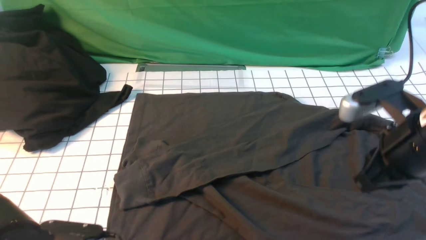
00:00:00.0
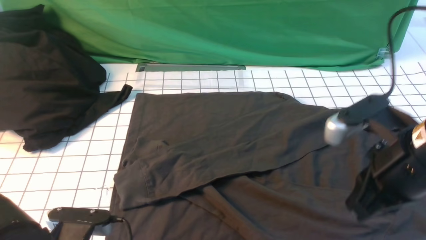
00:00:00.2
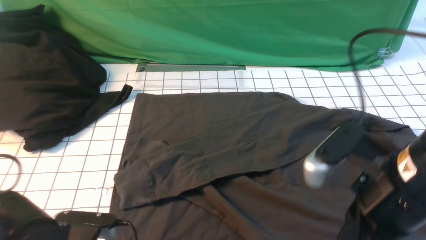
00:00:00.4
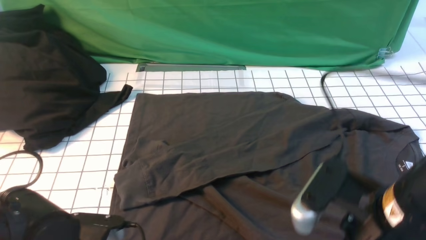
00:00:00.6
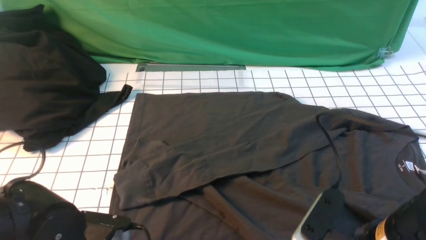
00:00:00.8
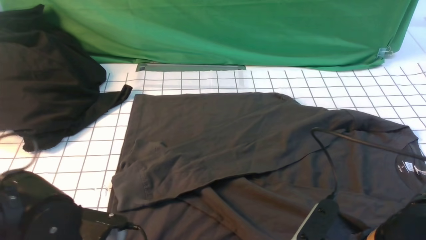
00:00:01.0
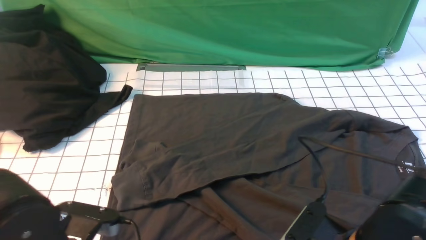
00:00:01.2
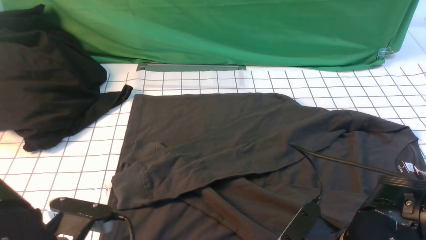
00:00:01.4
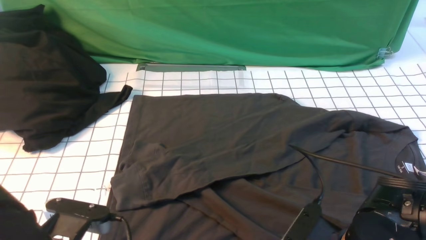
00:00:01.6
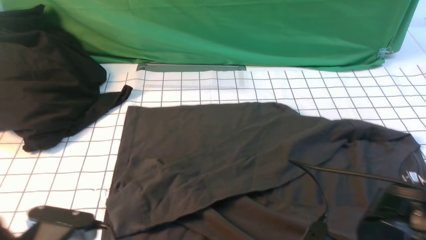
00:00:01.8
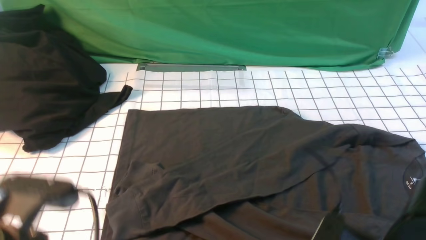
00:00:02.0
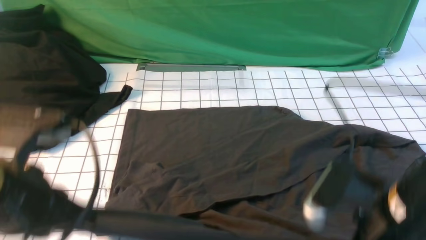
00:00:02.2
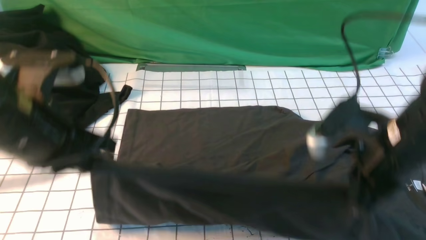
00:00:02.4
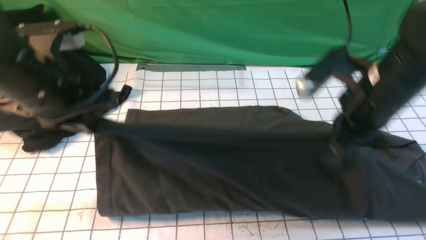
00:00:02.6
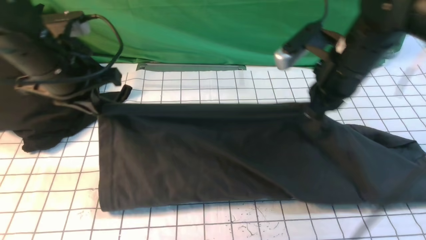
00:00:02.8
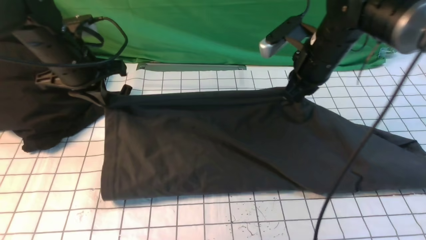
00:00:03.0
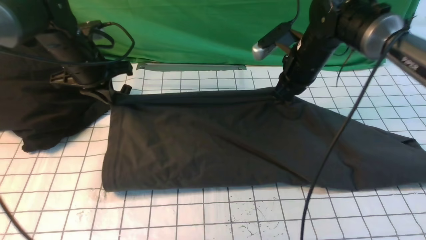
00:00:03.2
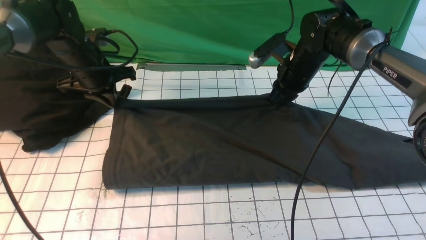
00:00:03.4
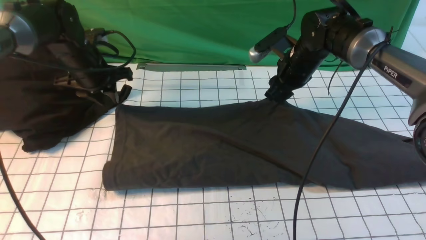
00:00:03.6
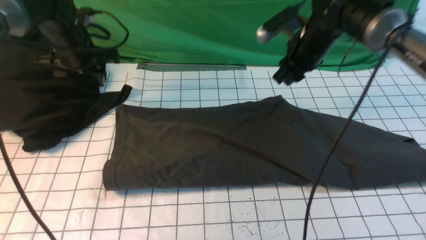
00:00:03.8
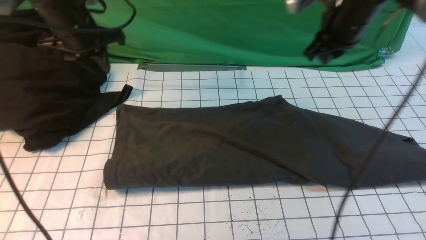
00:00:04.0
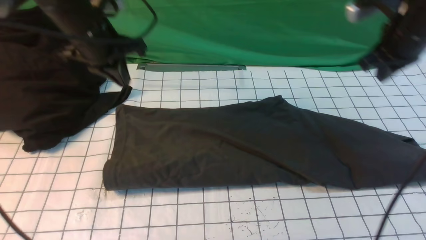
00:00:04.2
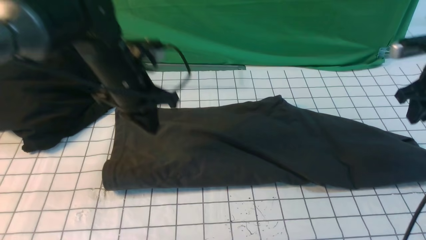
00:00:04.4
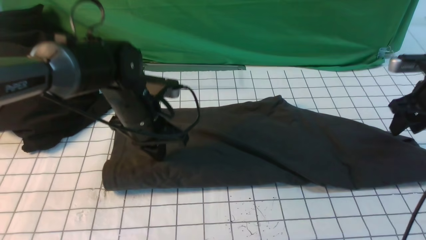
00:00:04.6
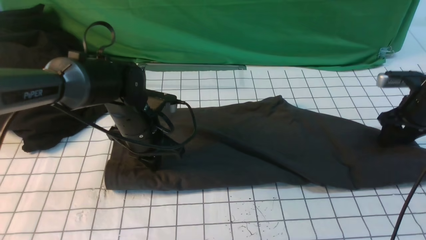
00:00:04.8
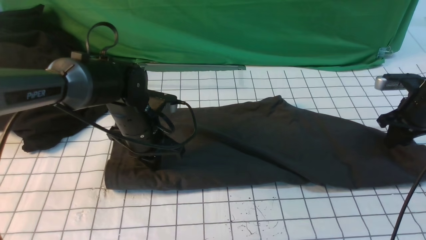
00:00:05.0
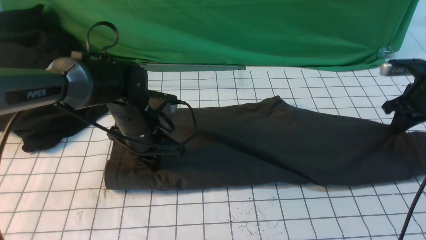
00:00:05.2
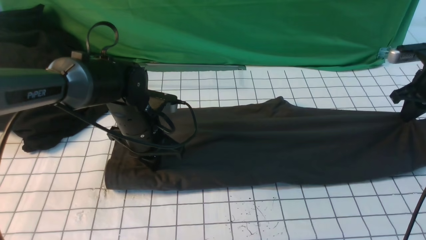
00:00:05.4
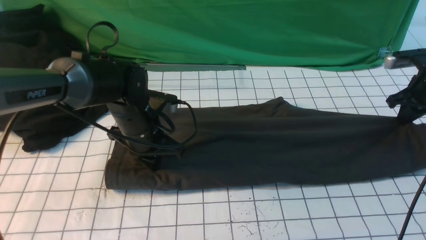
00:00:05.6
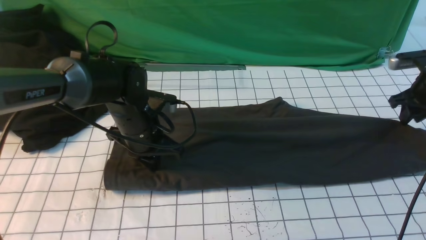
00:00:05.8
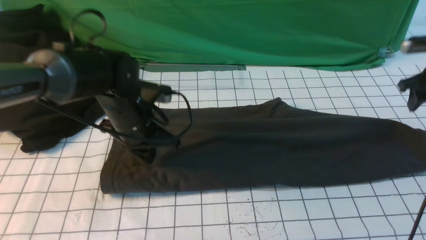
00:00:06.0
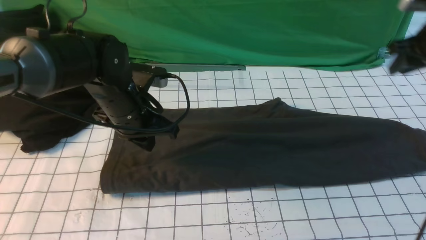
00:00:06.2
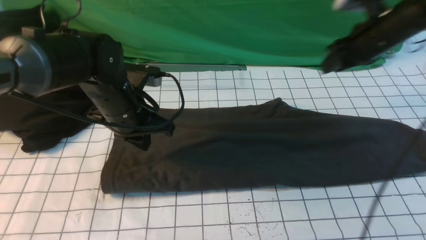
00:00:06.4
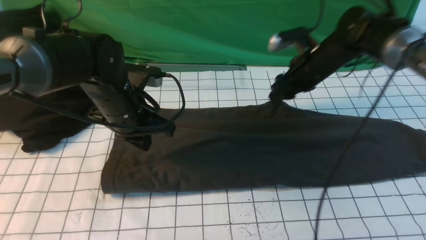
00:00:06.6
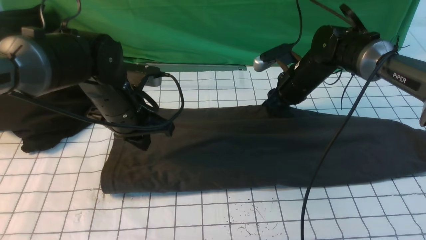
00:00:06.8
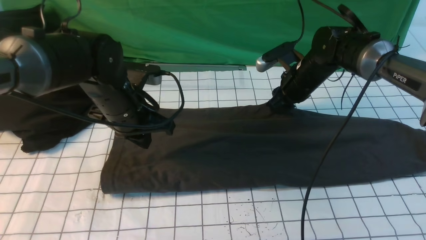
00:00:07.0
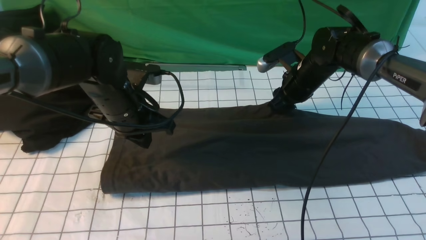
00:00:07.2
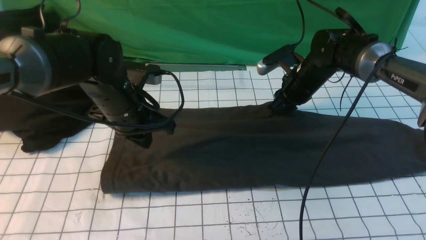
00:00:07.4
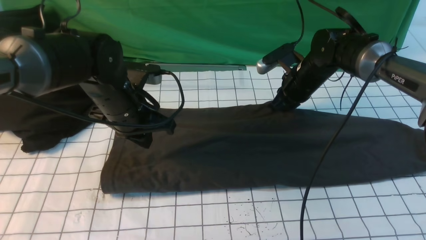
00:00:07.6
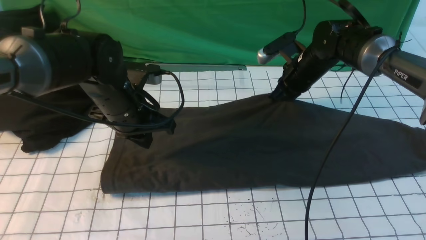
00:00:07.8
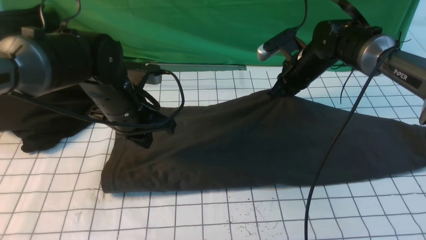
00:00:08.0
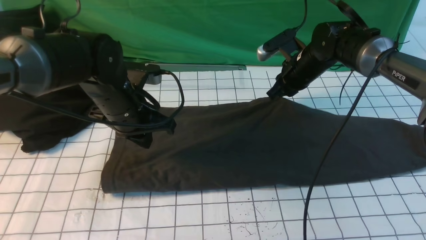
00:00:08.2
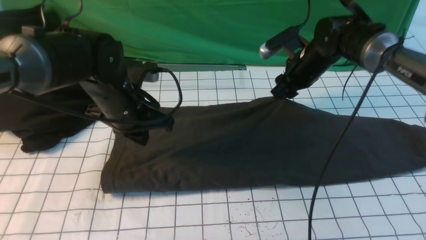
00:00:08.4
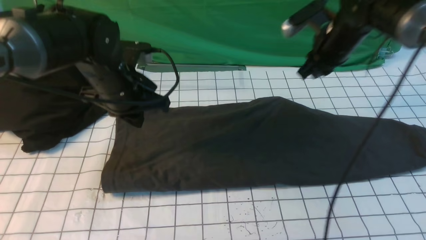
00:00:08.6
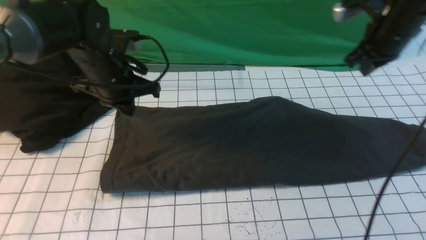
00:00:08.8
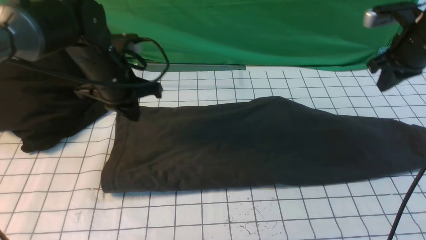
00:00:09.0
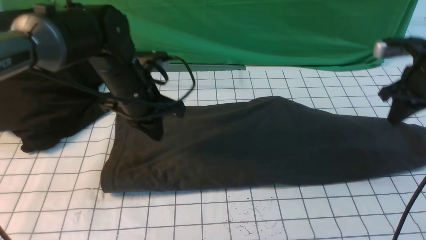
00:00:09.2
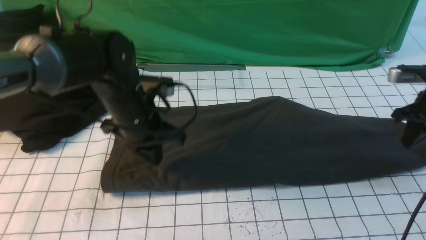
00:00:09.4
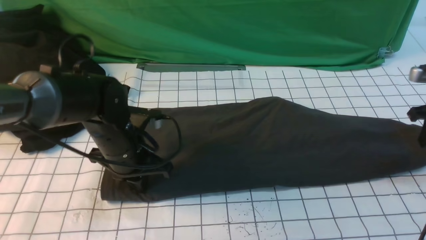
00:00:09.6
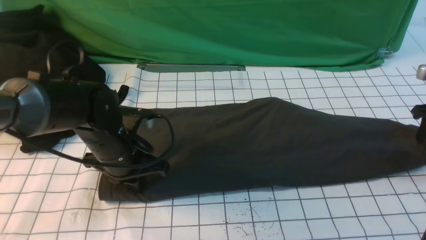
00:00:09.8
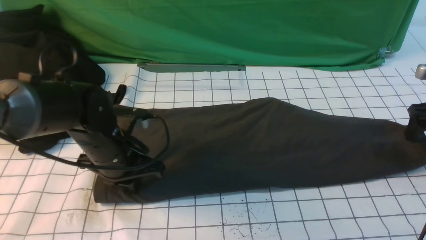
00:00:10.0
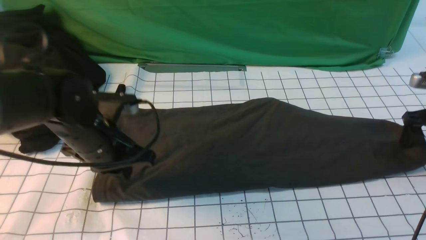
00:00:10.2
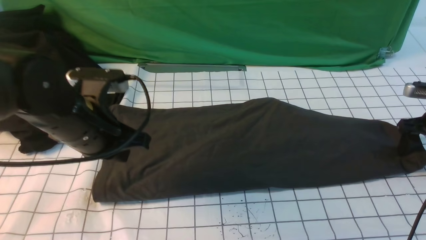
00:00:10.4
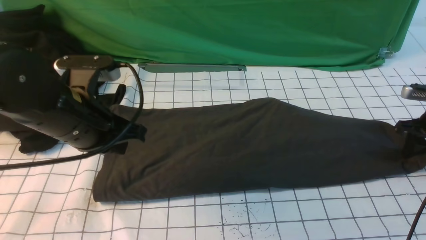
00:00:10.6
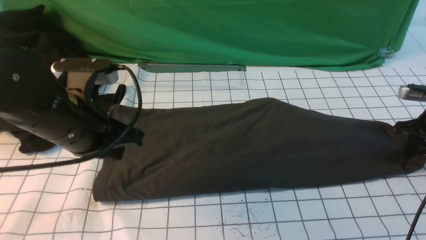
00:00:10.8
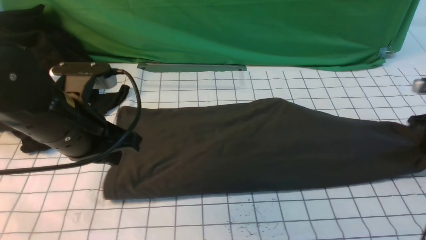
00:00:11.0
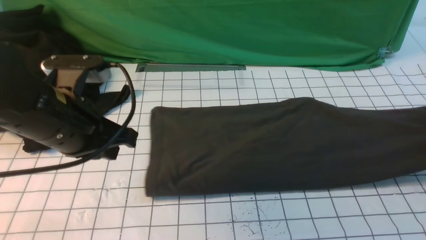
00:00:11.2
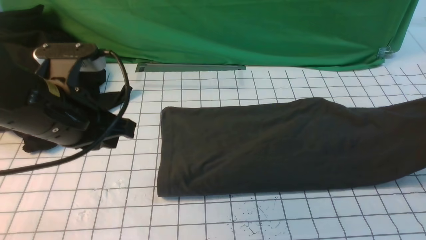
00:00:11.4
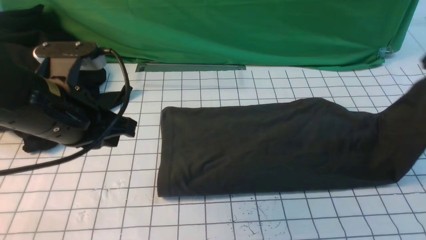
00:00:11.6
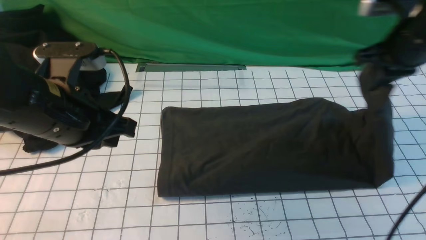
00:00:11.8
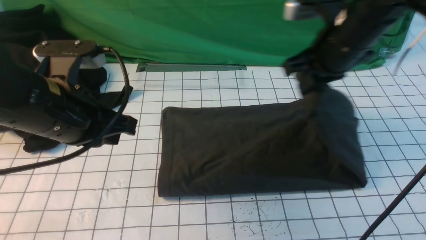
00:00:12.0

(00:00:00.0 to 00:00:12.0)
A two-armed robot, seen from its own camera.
Step, 00:00:00.0 - 00:00:02.0: use both arms simultaneously to clamp the lower edge of the clothing fabric.
Step, 00:00:02.2 - 00:00:03.6: use both arms to drag the lower edge of the fabric forward and fold it over the upper edge.
Step, 00:00:03.8 - 00:00:11.2: use the right arm to clamp the right edge of the fabric.
00:00:00.0 - 00:00:01.6: The right gripper goes about 15 cm downward and backward, and opens up, while the left gripper closes its fingers.
00:00:01.6 - 00:00:03.0: Both grippers move forward, some 30 cm.
00:00:03.0 - 00:00:04.4: The left gripper travels to the right by approximately 10 cm, and opens, then closes again. The right gripper goes roughly 20 cm to the right, and opens up.
00:00:04.4 - 00:00:06.0: The right gripper ends up about 5 cm from where it was, and closes and opens again.
00:00:06.0 - 00:00:07.6: The right gripper goes roughly 20 cm to the left, and closes its fingers.
00:00:07.6 - 00:00:09.0: The right gripper moves to the right and upward, roughly 20 cm, and opens, then closes again.
00:00:09.0 - 00:00:10.4: The left gripper goes some 10 cm backward, while the right gripper shifts some 15 cm downward and to the right, and opens its fingers.
00:00:10.4 - 00:00:12.0: The right gripper is displaced to the left and upward by roughly 30 cm, and closes its fingers, while the left gripper heads upward, covering about 5 cm.

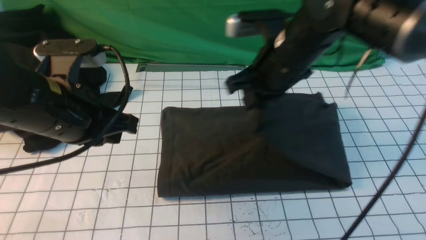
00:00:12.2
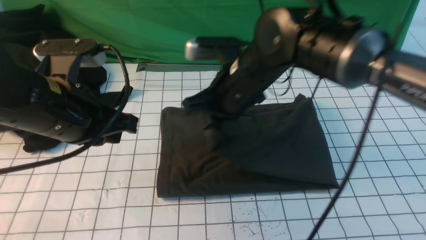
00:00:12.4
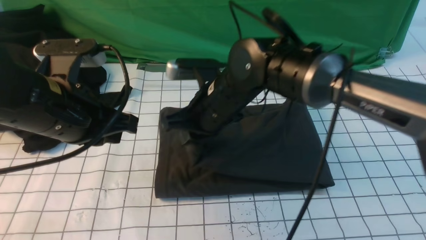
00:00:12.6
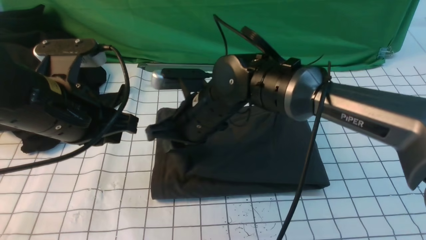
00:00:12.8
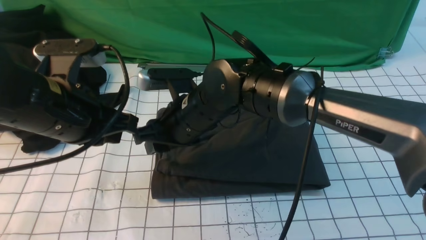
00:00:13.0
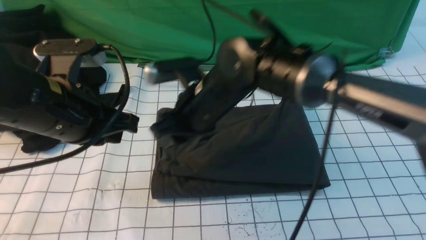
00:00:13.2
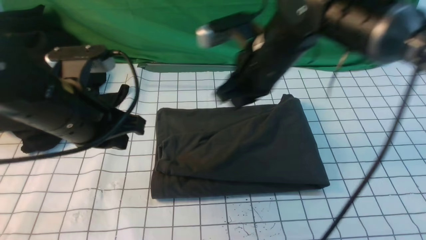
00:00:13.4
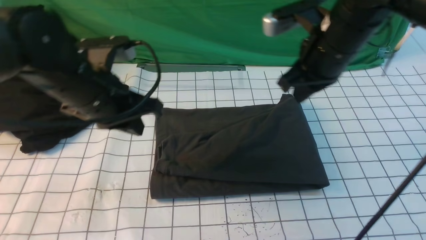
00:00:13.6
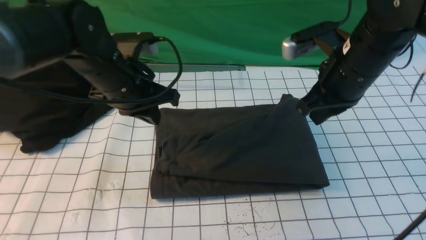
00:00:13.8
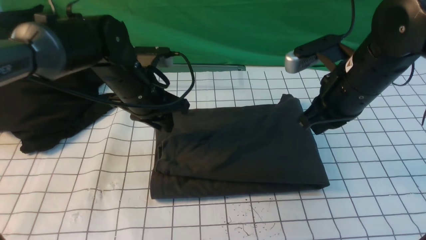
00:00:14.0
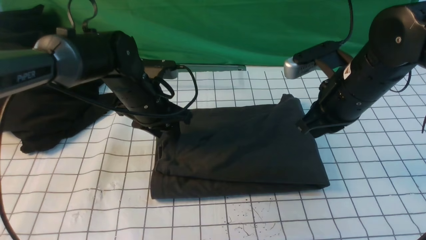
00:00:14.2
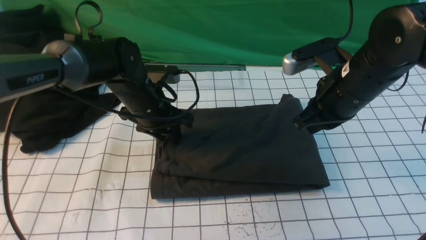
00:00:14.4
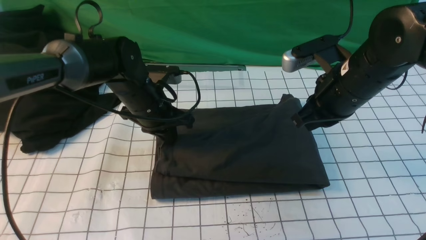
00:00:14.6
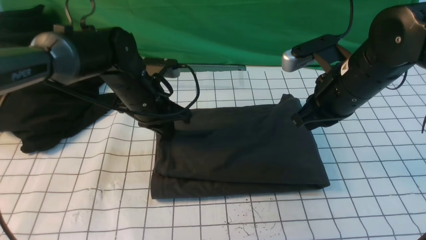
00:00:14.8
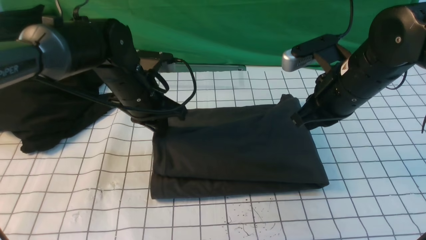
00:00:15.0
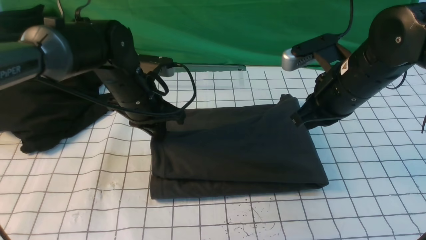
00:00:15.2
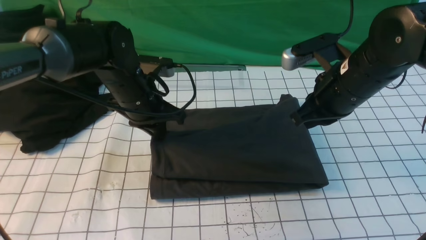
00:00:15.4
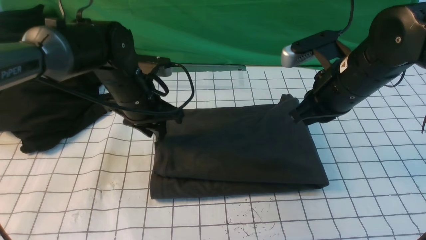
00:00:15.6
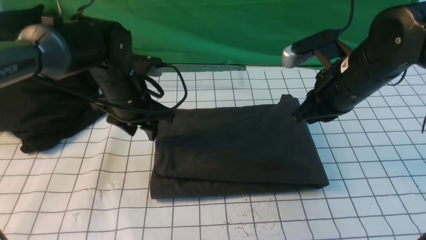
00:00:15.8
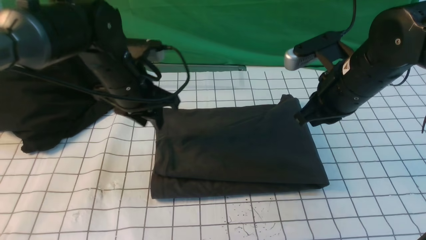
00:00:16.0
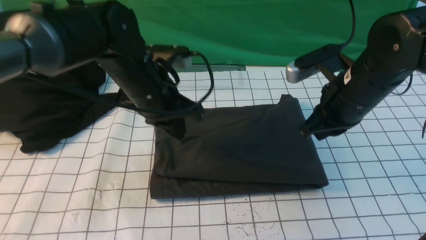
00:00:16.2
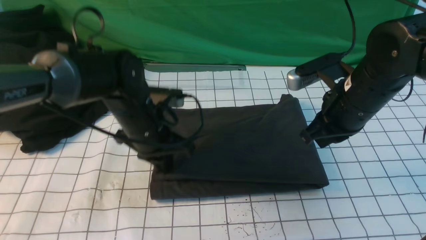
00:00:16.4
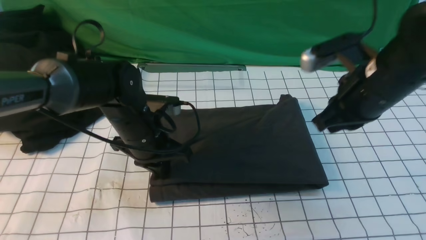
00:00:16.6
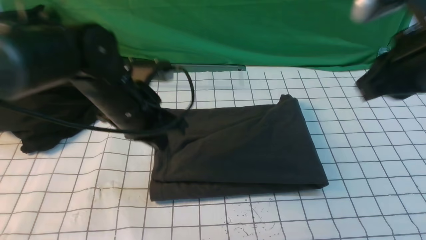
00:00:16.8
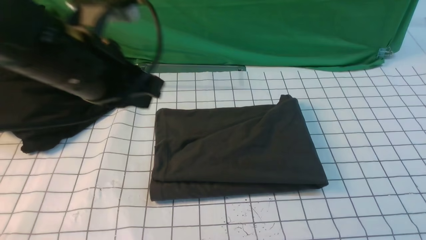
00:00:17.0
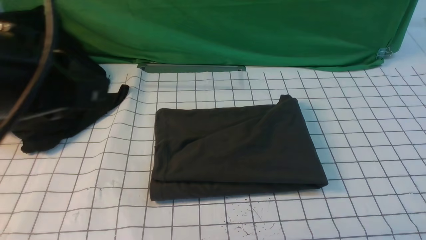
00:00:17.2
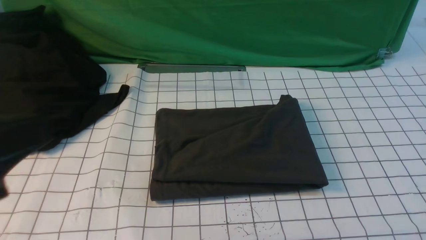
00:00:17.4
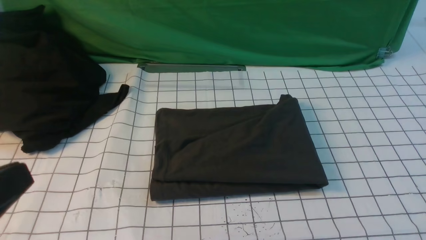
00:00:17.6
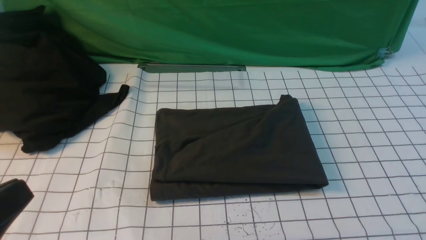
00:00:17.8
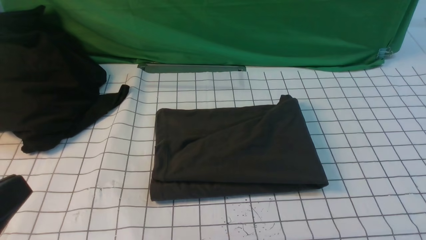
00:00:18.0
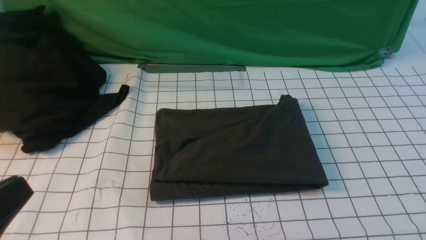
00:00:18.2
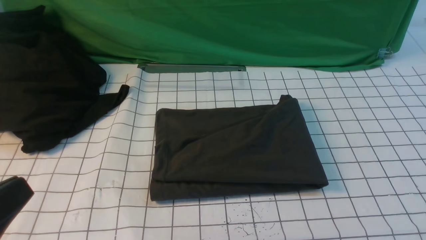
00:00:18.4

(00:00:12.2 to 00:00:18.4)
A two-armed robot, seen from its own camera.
00:00:12.2 - 00:00:13.8: The left gripper is displaced forward by some 10 cm. Meanwhile the right gripper moves to the right, about 10 cm, and opens, then closes again.
00:00:13.8 - 00:00:15.4: The left gripper opens, then closes once more.
00:00:15.4 - 00:00:16.8: The left gripper is displaced backward and upward by about 10 cm, and opens, then closes again. The right gripper heads upward, backward and to the right, covering some 15 cm.
00:00:16.8 - 00:00:18.4: The left gripper shifts about 30 cm backward and to the left. The right gripper moves backward and to the right, about 25 cm.
